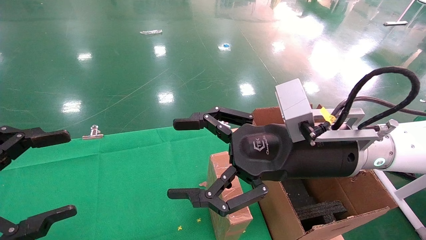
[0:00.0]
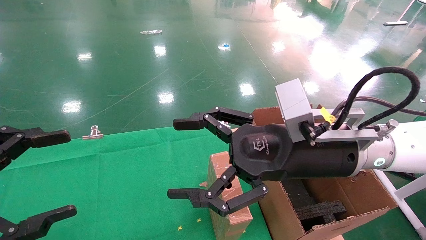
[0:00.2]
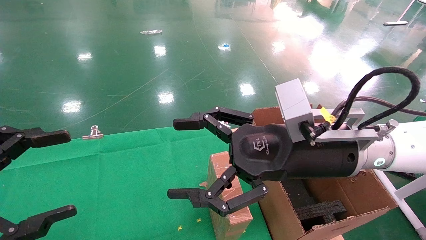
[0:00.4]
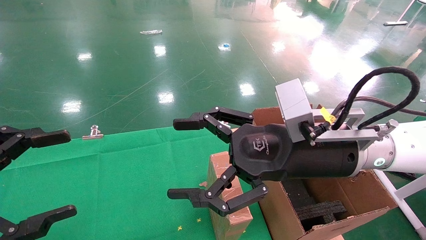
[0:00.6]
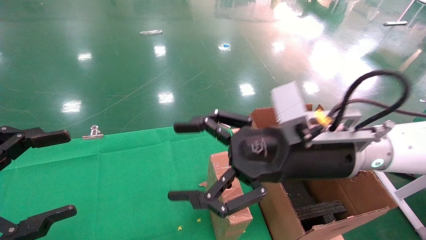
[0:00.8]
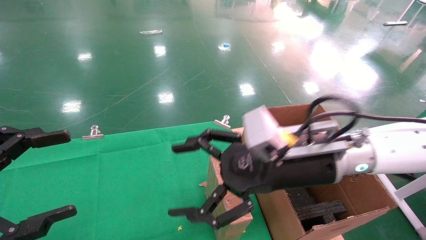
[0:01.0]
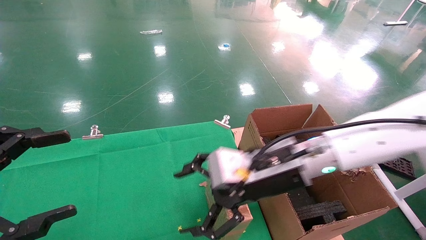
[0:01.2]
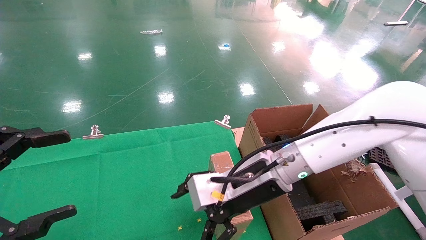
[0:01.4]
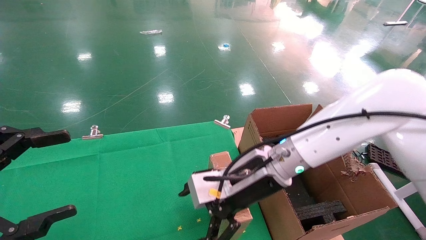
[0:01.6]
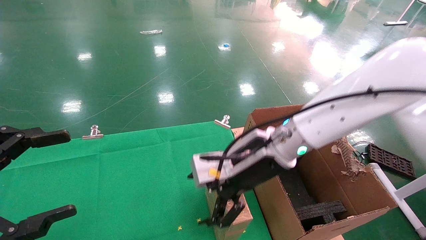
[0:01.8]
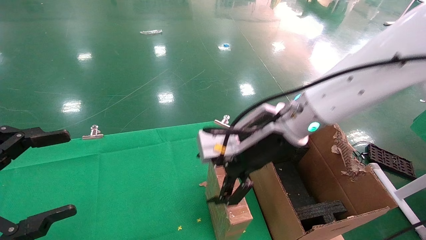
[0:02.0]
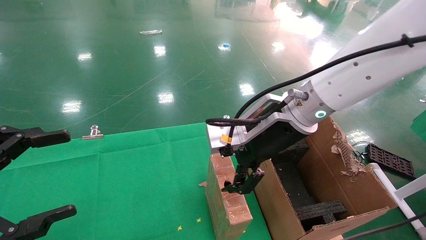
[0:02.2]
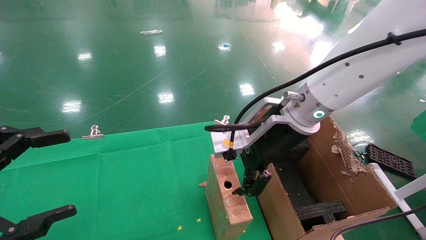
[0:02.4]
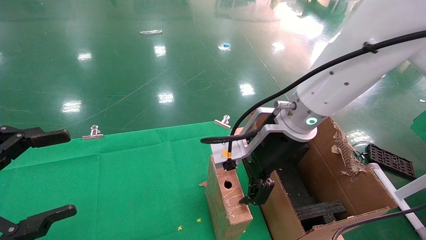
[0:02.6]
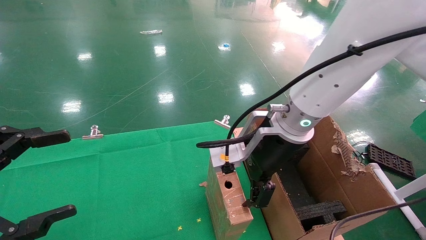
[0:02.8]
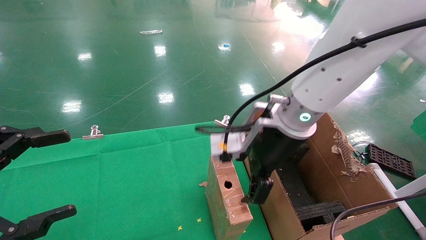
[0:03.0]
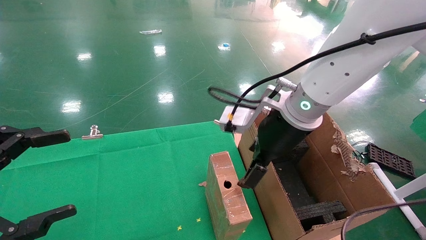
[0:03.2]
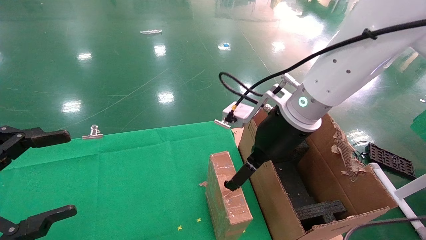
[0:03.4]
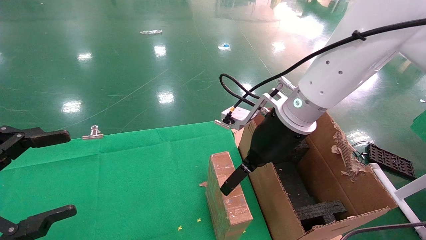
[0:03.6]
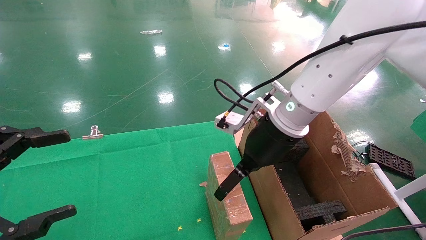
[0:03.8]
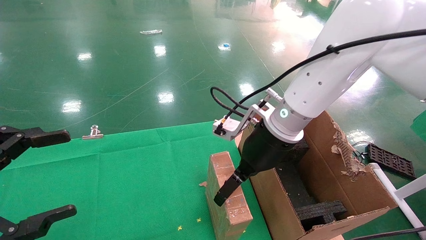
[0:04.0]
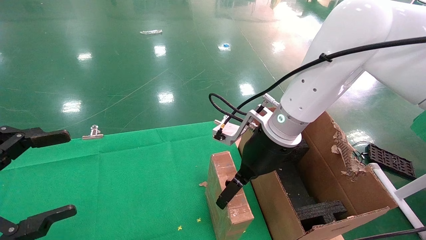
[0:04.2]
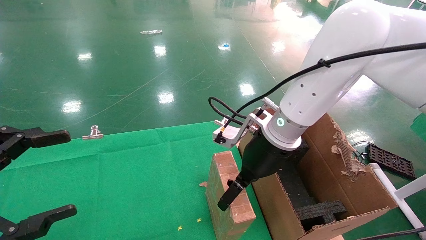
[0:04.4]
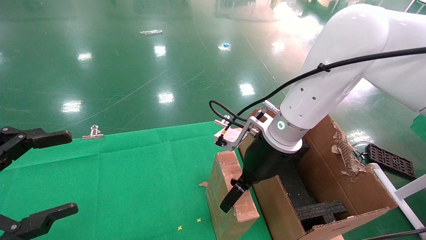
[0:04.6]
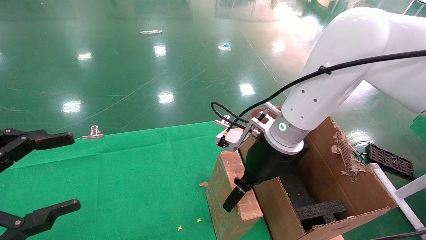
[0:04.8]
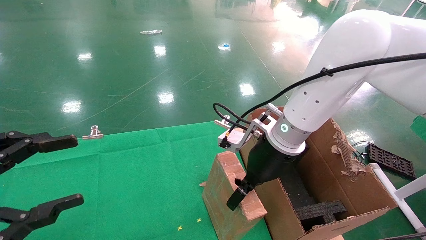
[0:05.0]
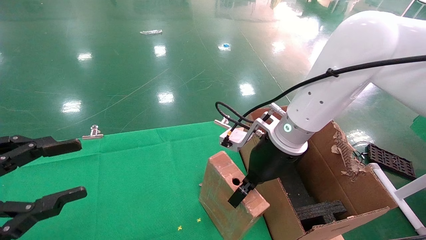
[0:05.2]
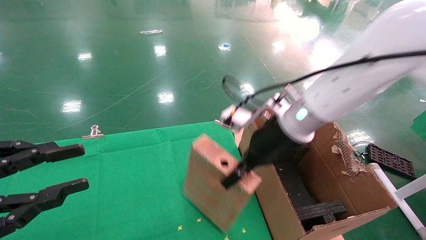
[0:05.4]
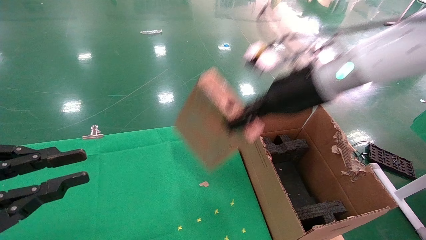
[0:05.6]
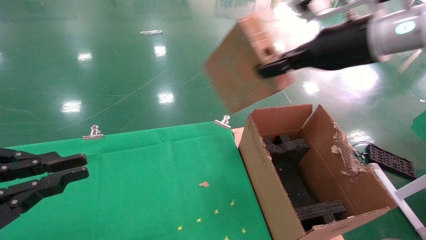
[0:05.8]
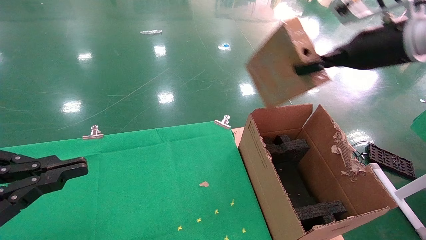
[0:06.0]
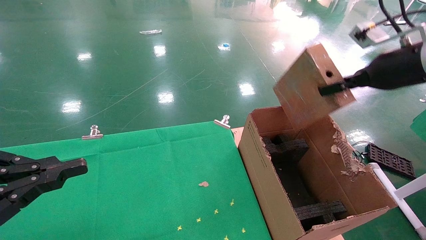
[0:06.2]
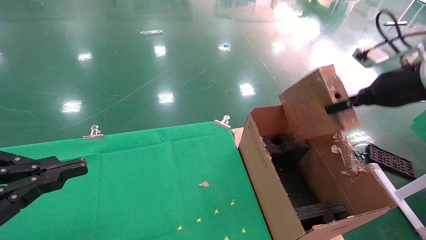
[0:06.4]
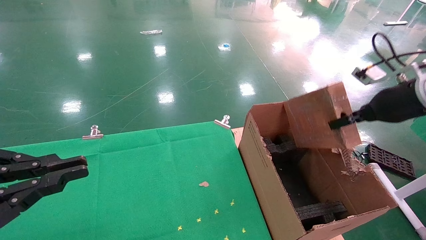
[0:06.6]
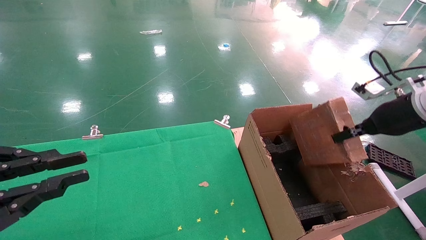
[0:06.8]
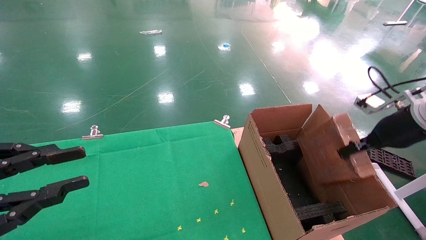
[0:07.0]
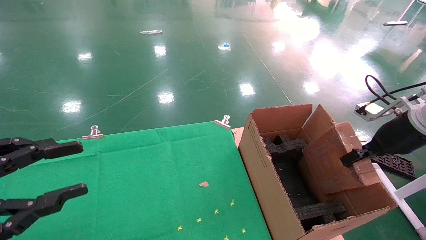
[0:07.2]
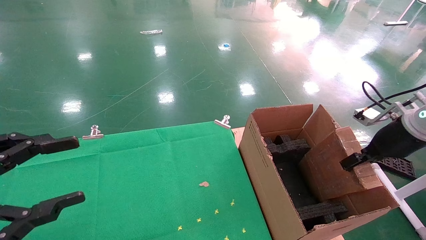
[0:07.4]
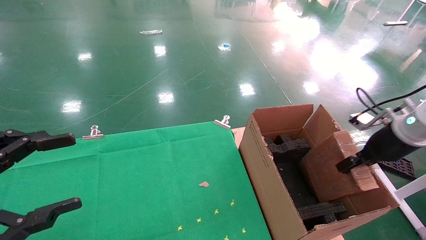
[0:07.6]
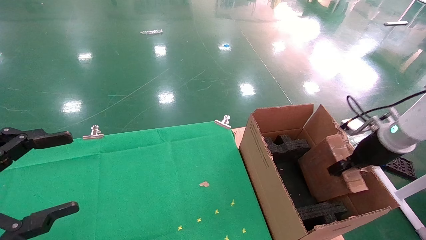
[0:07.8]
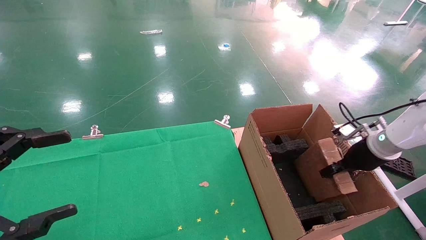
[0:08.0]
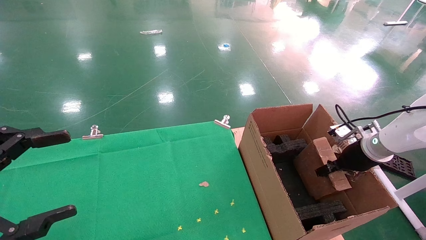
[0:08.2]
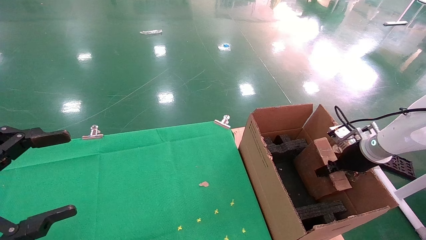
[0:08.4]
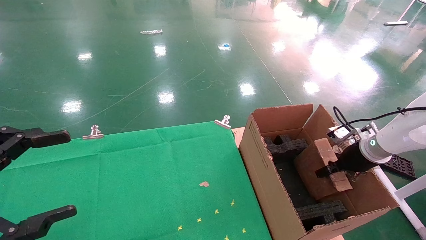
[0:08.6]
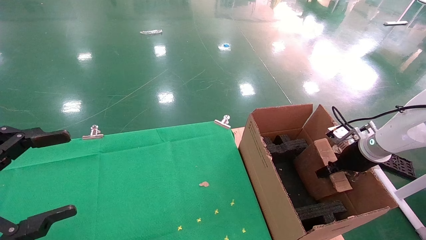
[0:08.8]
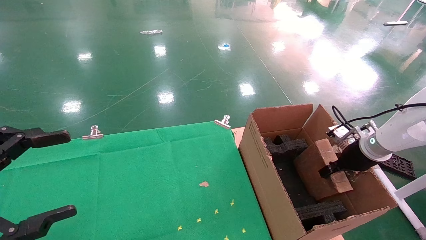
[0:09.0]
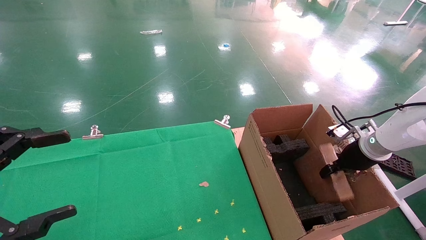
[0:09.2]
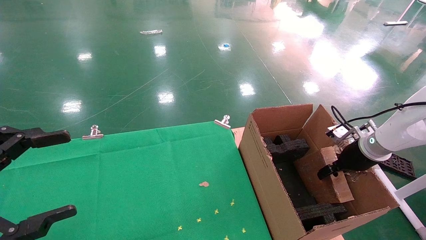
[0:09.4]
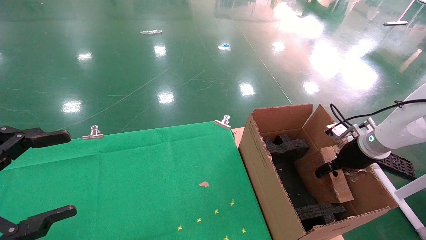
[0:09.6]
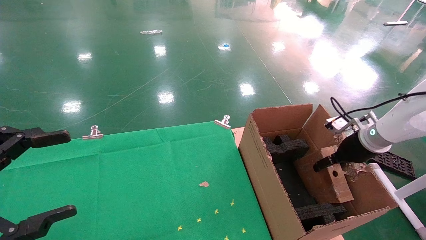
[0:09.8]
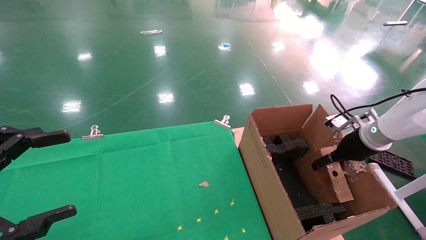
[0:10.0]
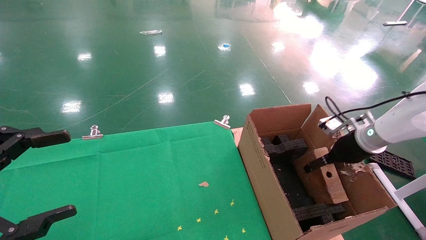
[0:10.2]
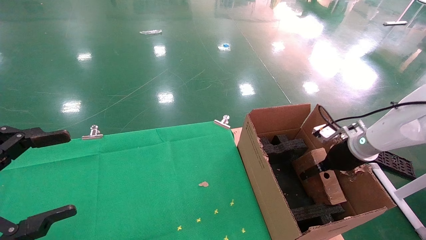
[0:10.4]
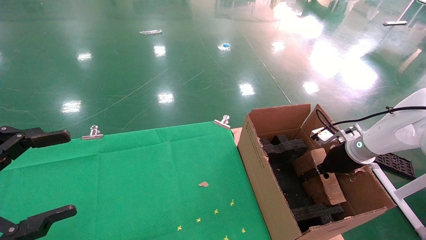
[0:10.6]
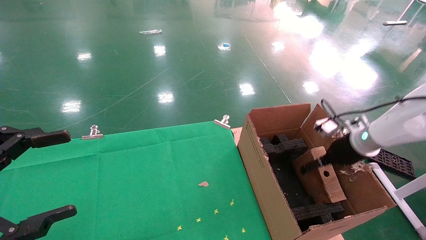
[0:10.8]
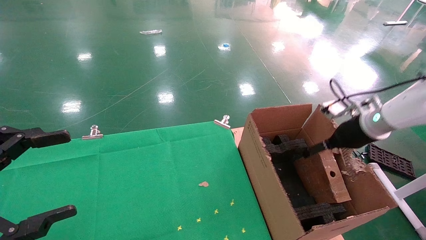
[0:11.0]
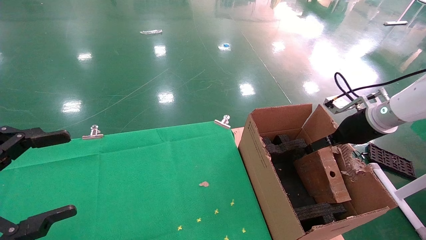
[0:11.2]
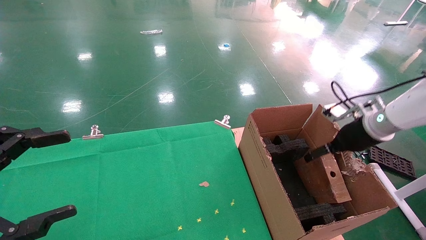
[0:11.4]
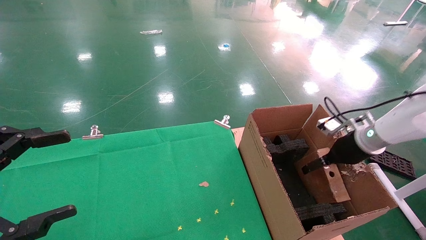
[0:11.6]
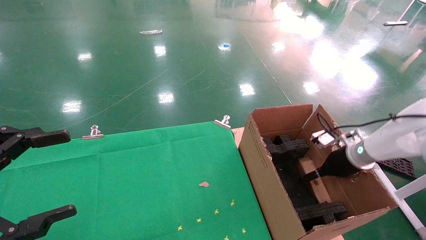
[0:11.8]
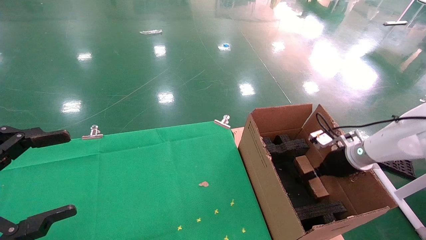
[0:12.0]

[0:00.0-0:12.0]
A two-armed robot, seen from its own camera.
Task of the whole recording: using a robotic arm to pick up a cardboard box and palace it the carton.
Step, 0:01.2 to 0:05.2: Pick up the mouse and the power cord paper box.
Step, 0:05.4 to 0:09.6: Place the mouse and the power cord paper box into the container.
0:00.0 to 0:01.6: The right gripper is displaced forward and to the left by about 10 cm.
0:01.6 to 0:03.0: The right gripper shifts roughly 5 cm upward.
0:04.4 to 0:06.0: The right gripper shifts approximately 25 cm to the right and upward, and closes its fingers. Meanwhile the left gripper closes up.
0:06.0 to 0:07.6: The right gripper shifts approximately 20 cm downward and to the right. Meanwhile the left gripper opens its fingers.
0:07.6 to 0:09.0: The right gripper moves downward, approximately 5 cm.
0:09.0 to 0:10.4: The right gripper opens.
0:10.4 to 0:12.0: The right gripper reaches approximately 5 cm upward, then returns.

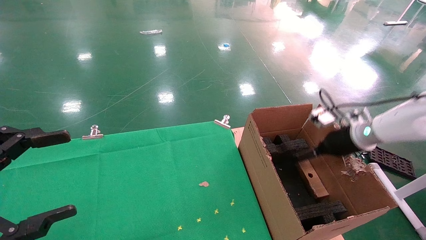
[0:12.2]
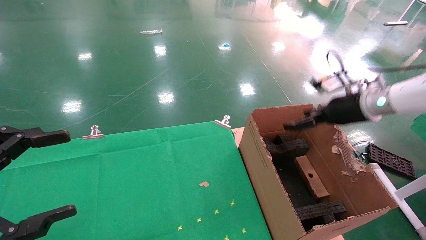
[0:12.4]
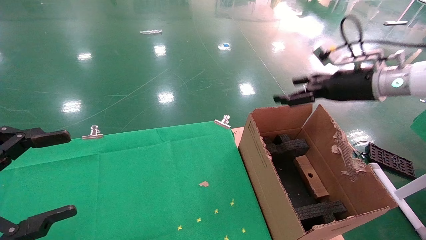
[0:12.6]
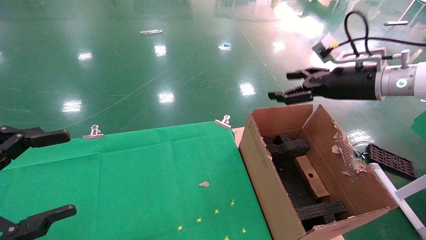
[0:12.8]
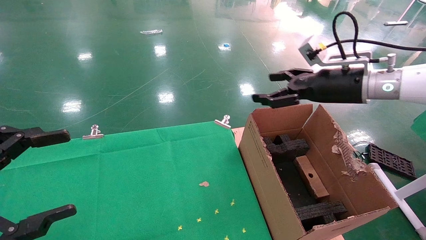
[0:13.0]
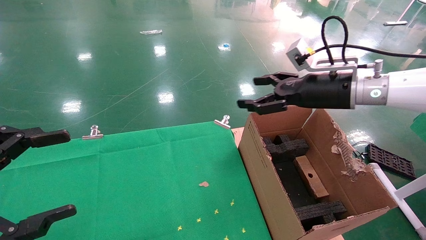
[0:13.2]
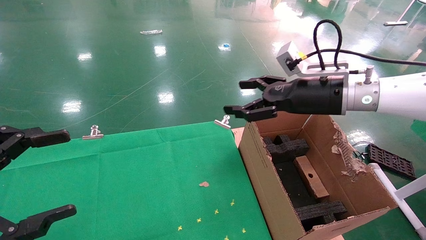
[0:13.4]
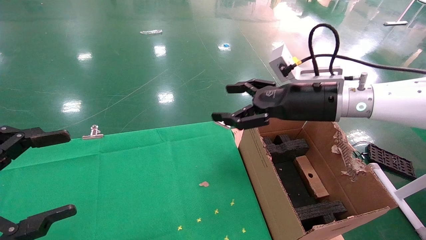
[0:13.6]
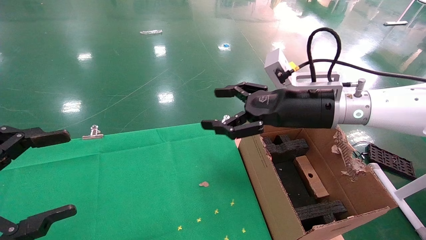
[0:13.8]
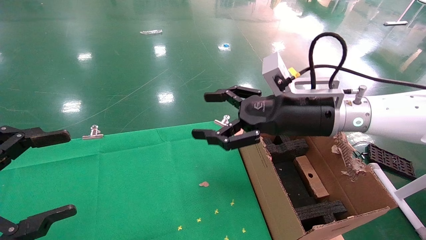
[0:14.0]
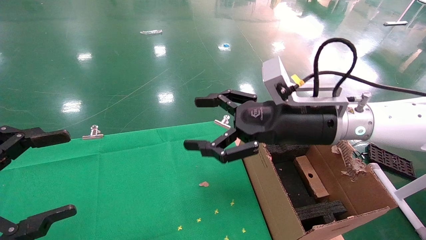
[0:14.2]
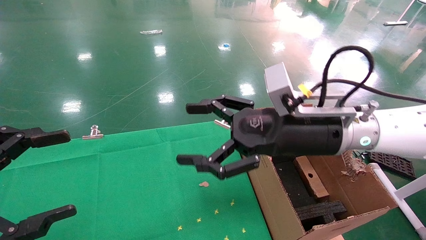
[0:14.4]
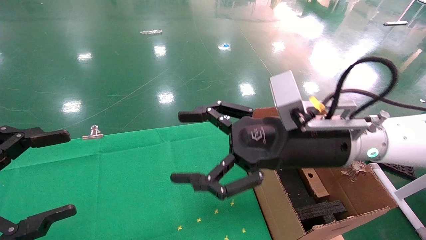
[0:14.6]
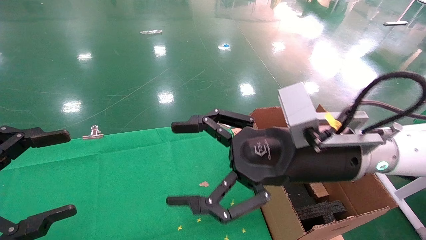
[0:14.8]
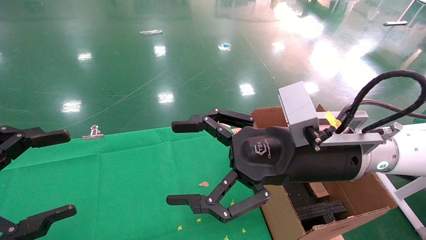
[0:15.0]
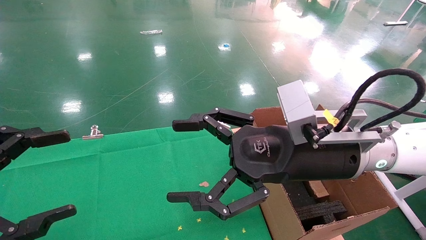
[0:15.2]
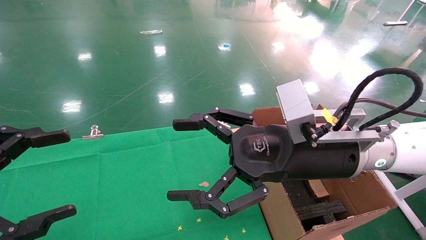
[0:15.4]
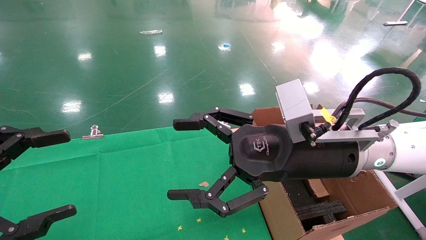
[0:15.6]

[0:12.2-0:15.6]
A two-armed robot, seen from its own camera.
Task of the whole recording: using a robotic arm to pick up a cardboard box and palace it the carton.
0:12.2 to 0:13.8: The right gripper goes approximately 20 cm to the left and upward.
0:13.8 to 0:15.6: The right gripper shifts approximately 10 cm backward and to the left.
